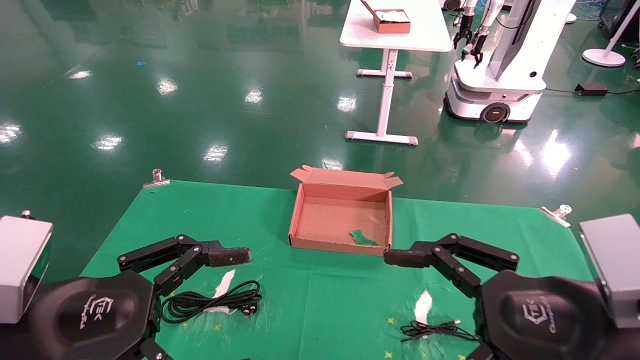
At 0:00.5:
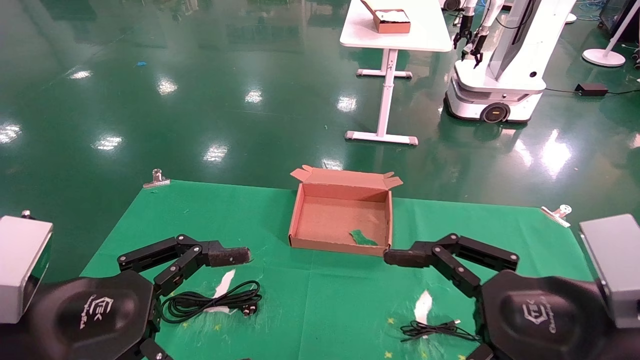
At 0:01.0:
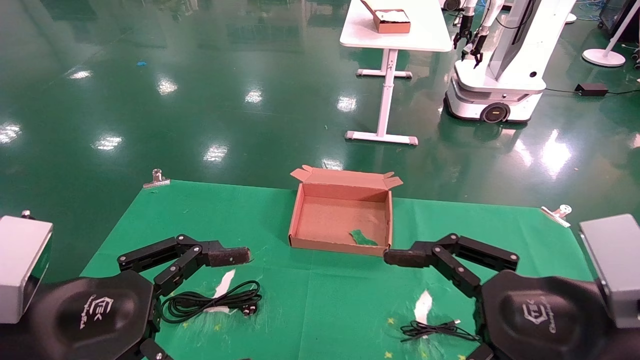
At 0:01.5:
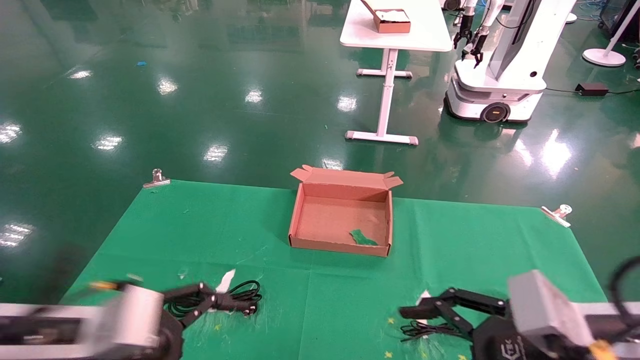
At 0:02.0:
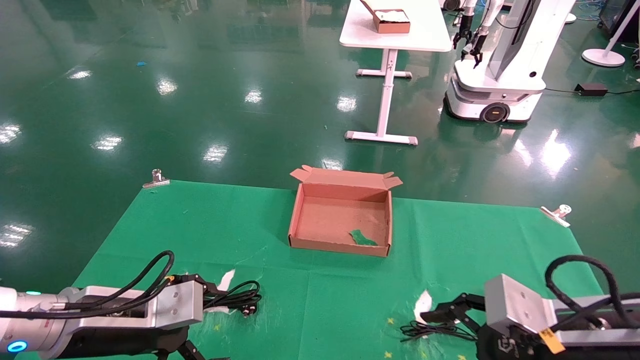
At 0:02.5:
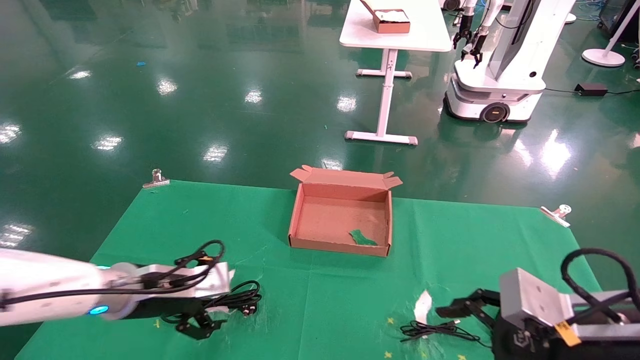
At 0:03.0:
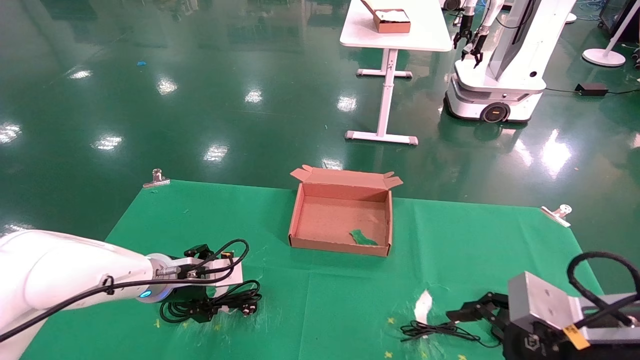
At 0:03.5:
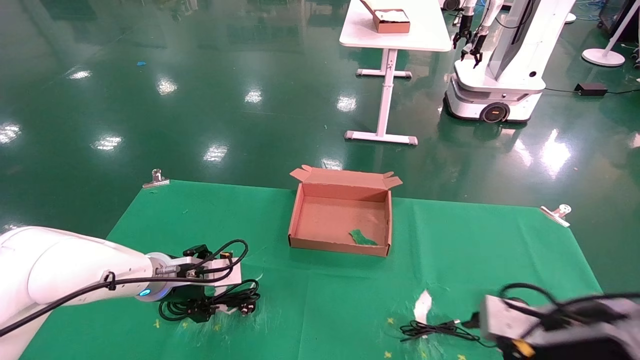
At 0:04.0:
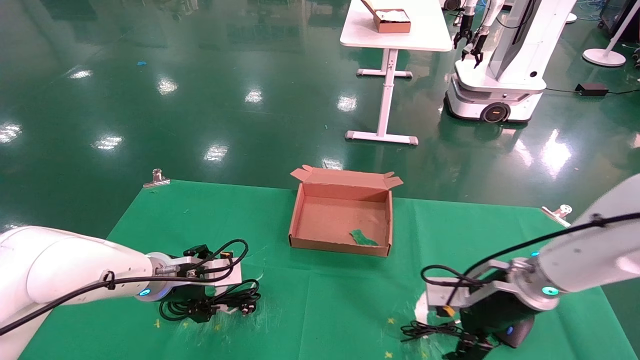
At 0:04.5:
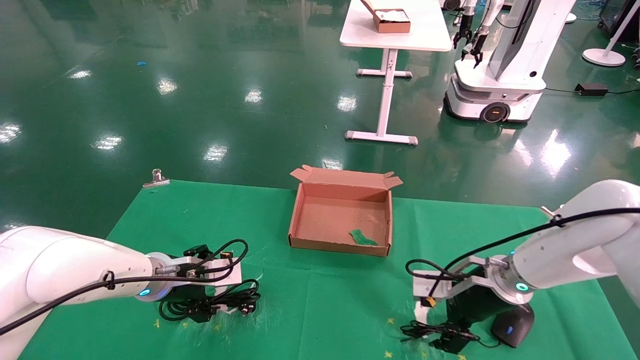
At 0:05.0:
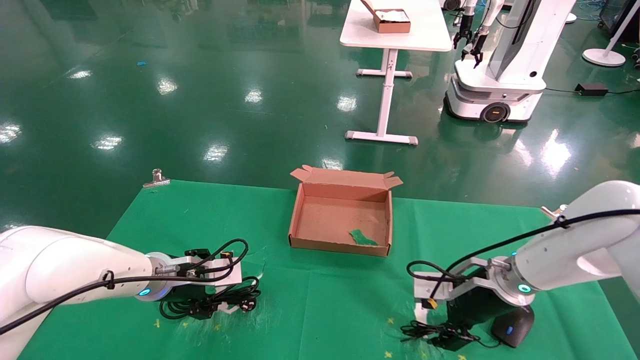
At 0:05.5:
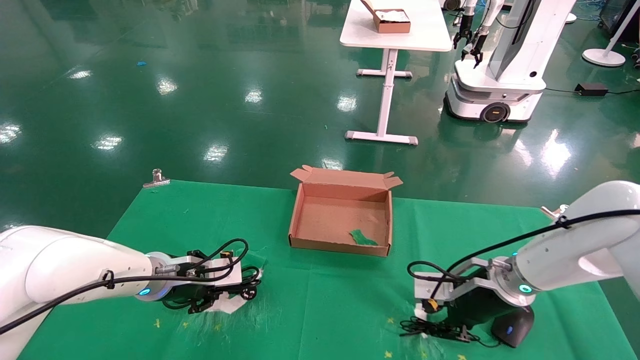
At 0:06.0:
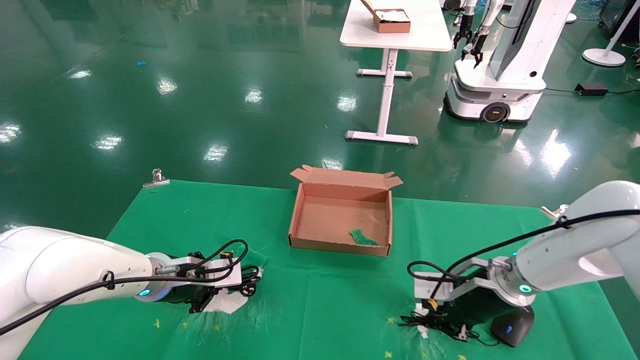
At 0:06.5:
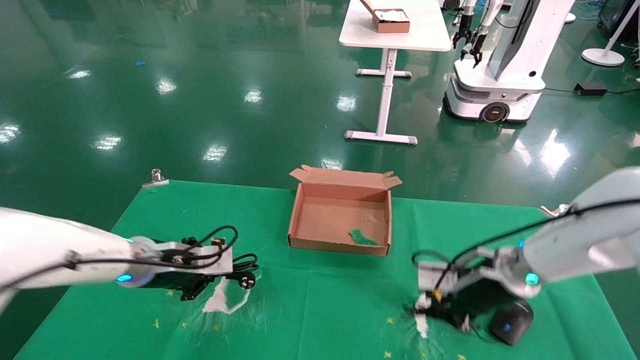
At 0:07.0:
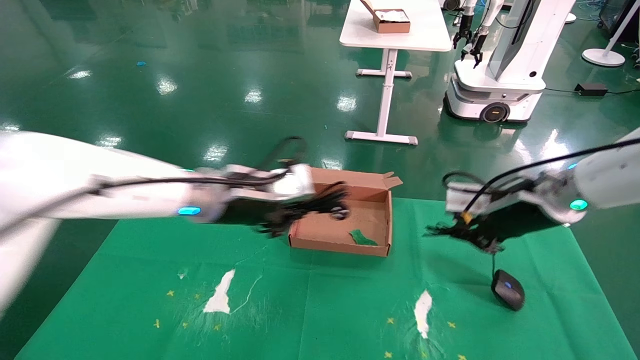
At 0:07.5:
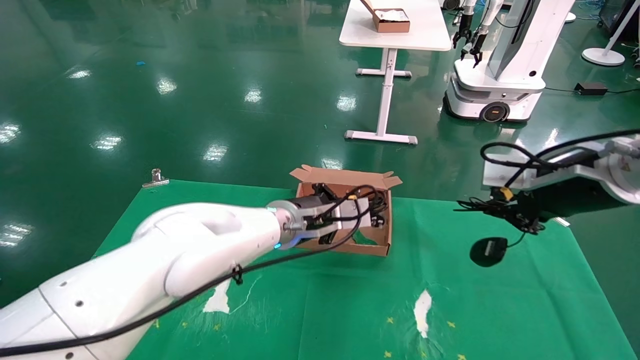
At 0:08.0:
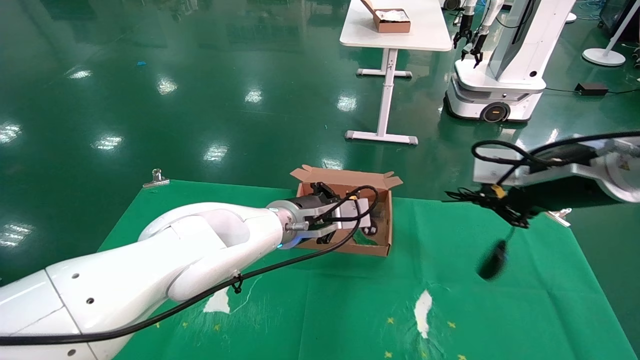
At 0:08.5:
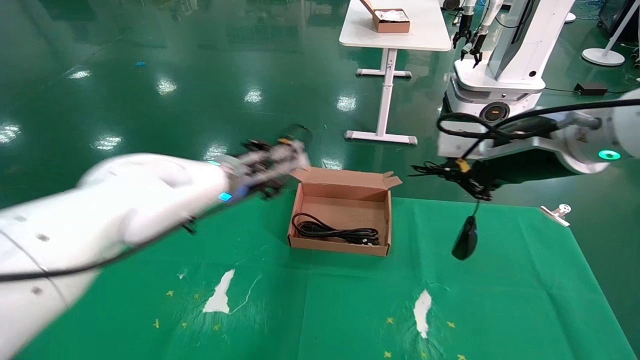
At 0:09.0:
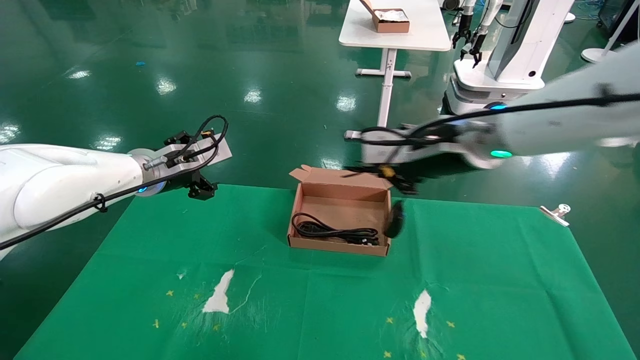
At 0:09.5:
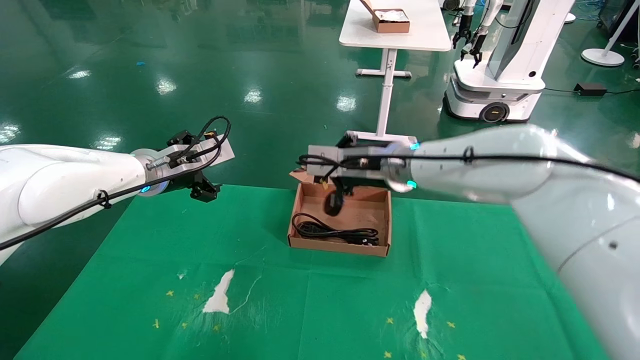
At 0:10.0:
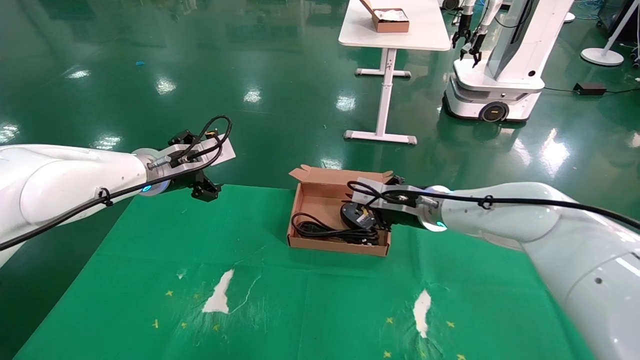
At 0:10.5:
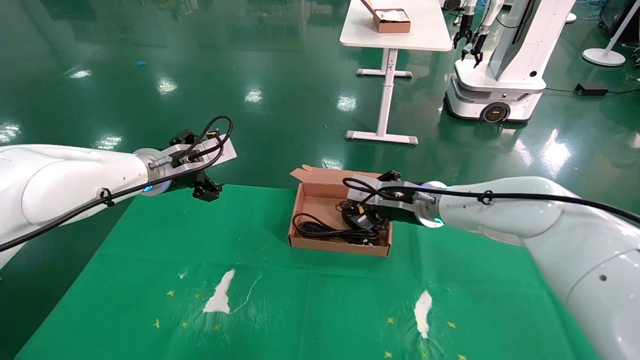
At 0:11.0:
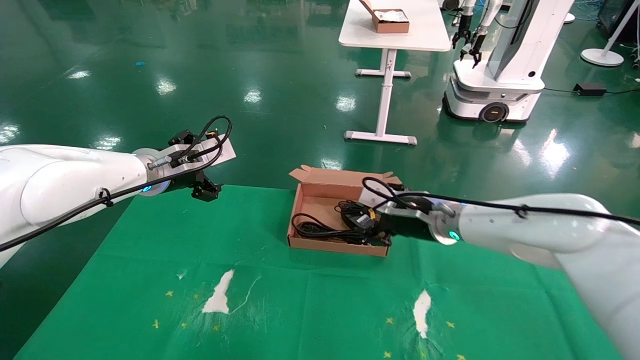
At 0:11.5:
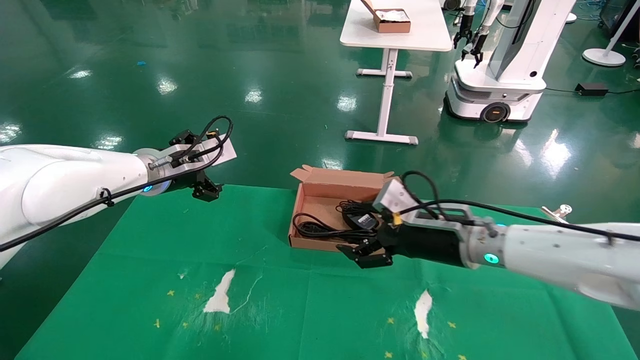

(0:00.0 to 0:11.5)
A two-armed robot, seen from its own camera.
Step, 0:02.0 - 0:07.0: Grab and lift both the mouse and power cord from the accessory packaging area at the same time.
Step, 0:07.5 - 0:11.0: Place the mouse and power cord into the box.
0:00.0 - 0:02.0: The left gripper shifts approximately 15 cm forward and downward, while the right gripper ends up some 5 cm from where it was.
0:02.0 - 0:04.0: Both grippers move forward, roughly 15 cm.
0:04.0 - 0:06.0: The left gripper closes up, while the right gripper closes.
0:06.0 - 0:07.5: The right gripper heads upward and backward, covering about 20 cm. Meanwhile the left gripper is displaced to the right and upward by roughly 20 cm.
0:07.5 - 0:09.5: The left gripper moves to the left, approximately 20 cm, and opens. Meanwhile the right gripper travels to the left and forward by about 25 cm.
0:09.5 - 0:11.5: The right gripper heads downward, to the right and backward, covering roughly 15 cm, and opens.

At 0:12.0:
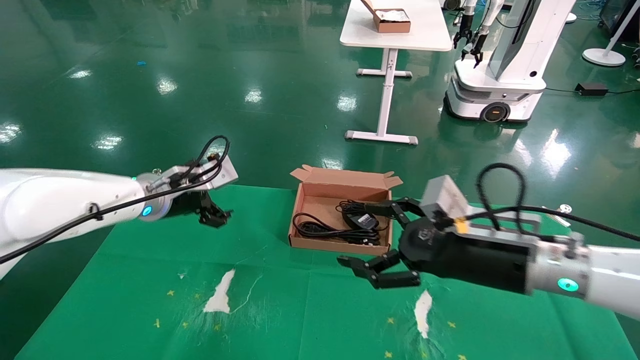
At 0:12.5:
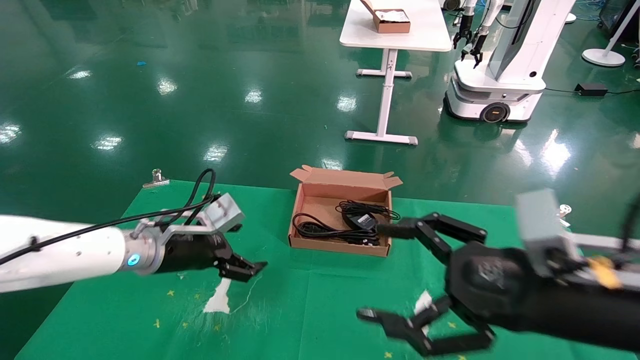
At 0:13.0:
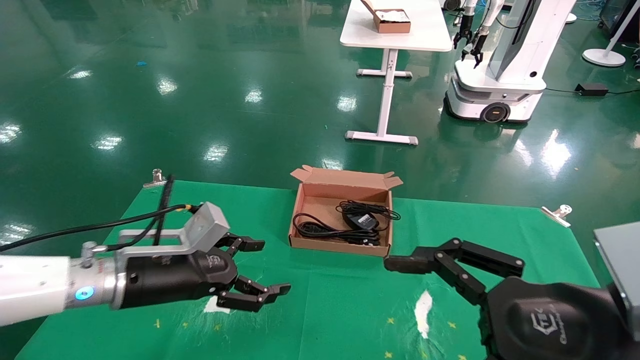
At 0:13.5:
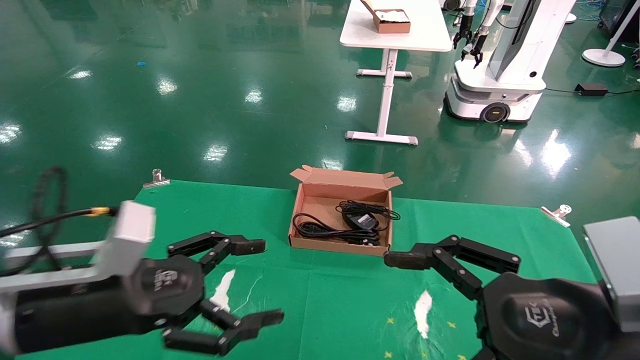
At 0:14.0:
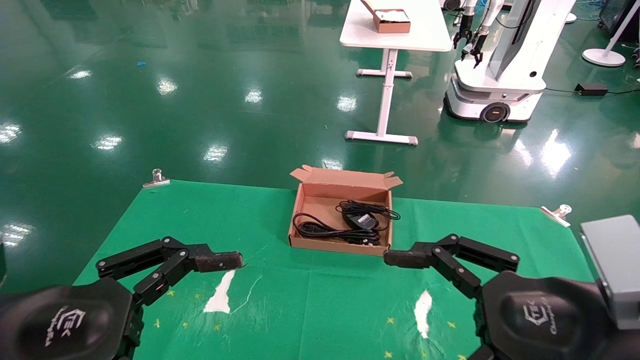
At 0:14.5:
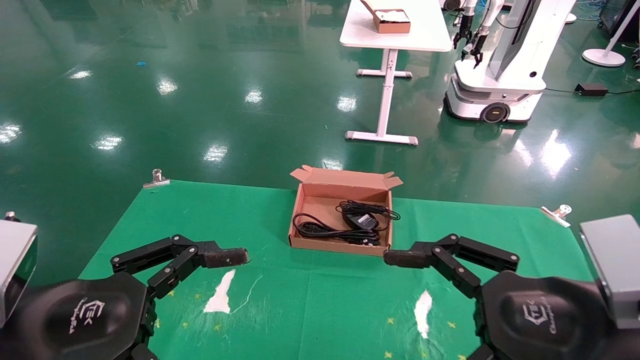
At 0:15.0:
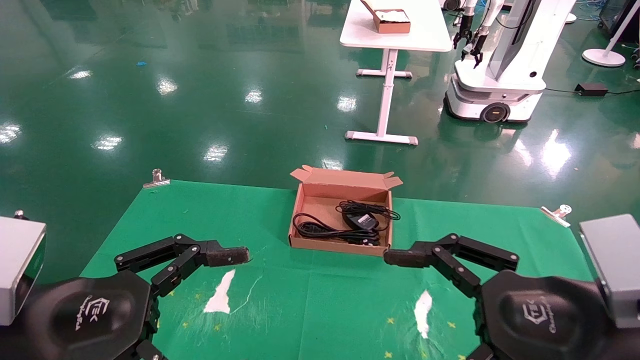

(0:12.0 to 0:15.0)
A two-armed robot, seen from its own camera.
0:12.0 - 0:13.5: Both grippers move backward, approximately 20 cm.
0:13.5 - 0:15.0: The left gripper travels backward by some 5 cm.
